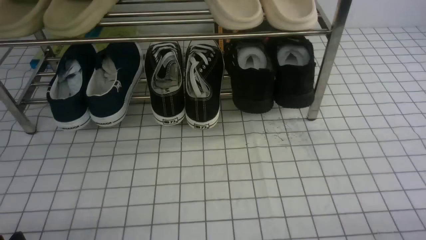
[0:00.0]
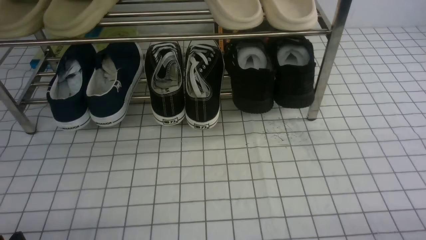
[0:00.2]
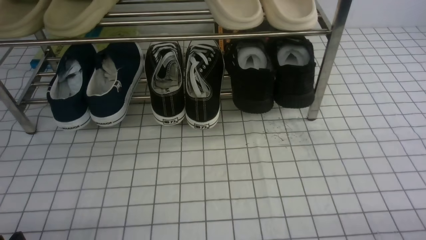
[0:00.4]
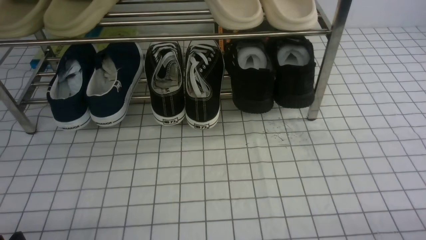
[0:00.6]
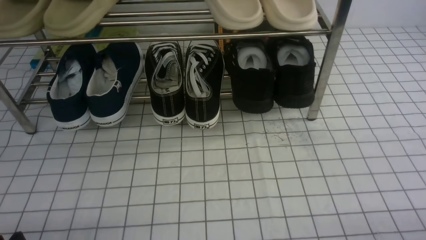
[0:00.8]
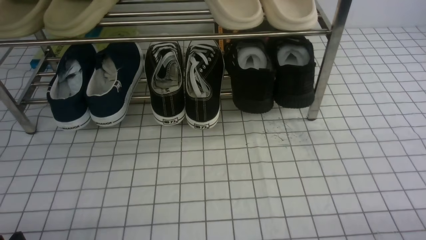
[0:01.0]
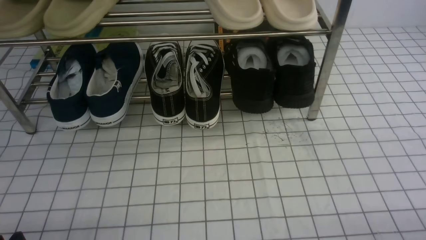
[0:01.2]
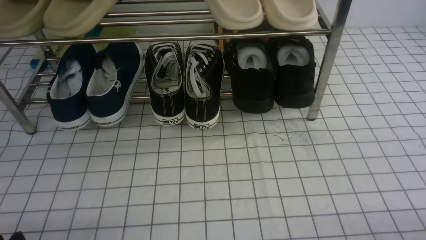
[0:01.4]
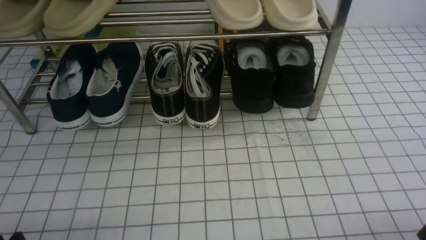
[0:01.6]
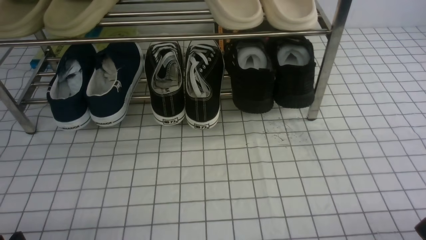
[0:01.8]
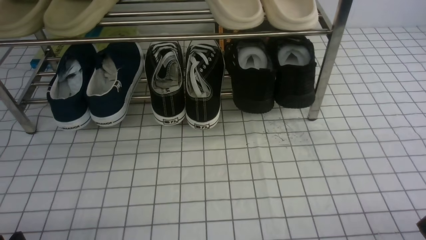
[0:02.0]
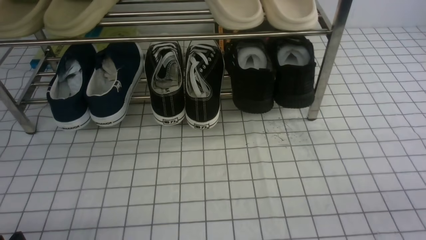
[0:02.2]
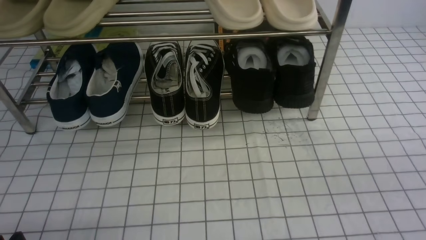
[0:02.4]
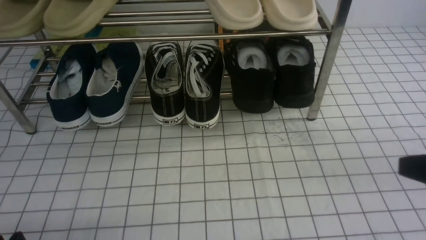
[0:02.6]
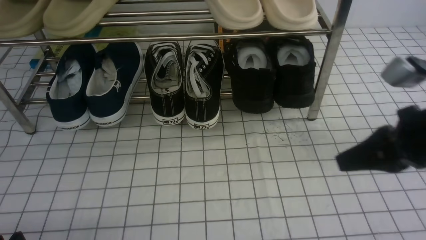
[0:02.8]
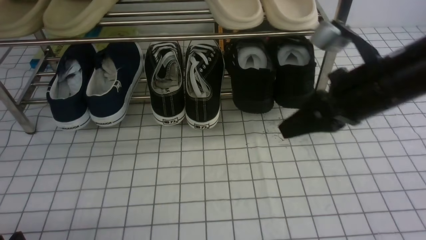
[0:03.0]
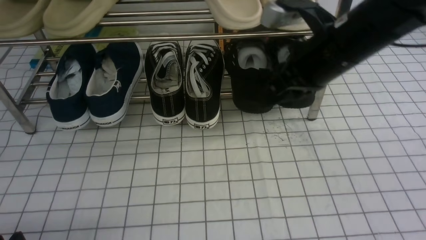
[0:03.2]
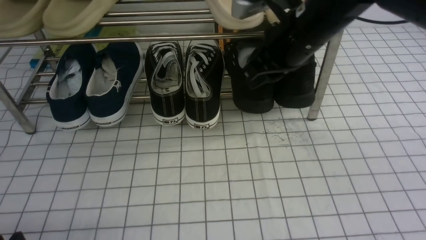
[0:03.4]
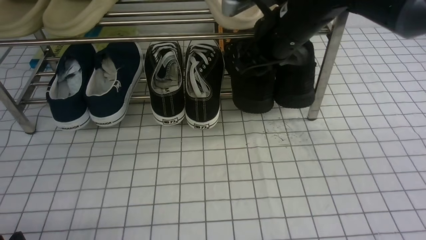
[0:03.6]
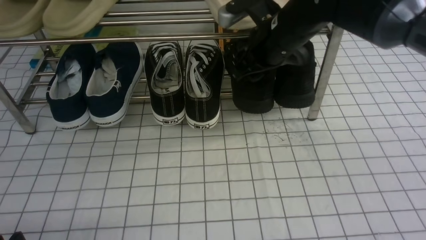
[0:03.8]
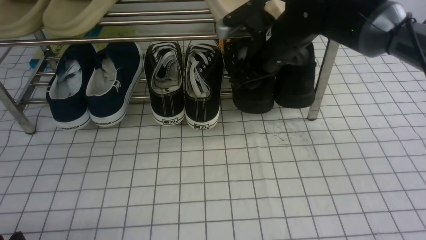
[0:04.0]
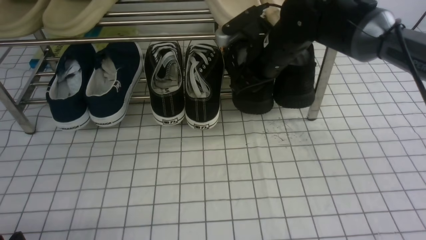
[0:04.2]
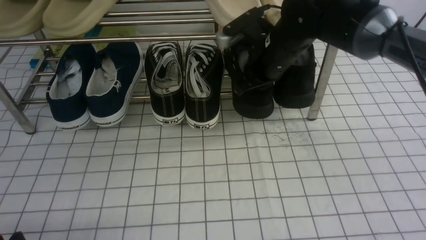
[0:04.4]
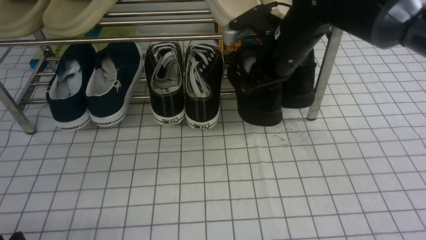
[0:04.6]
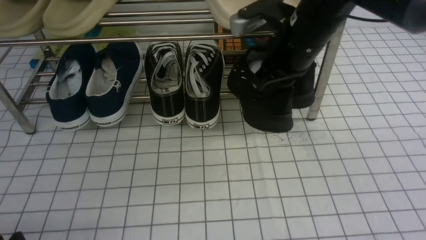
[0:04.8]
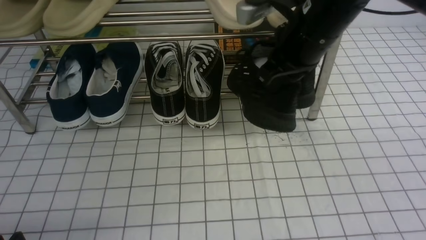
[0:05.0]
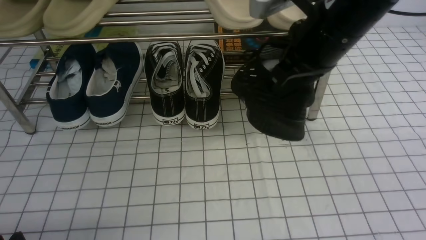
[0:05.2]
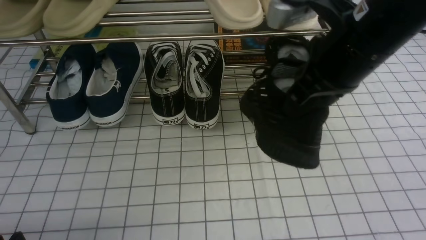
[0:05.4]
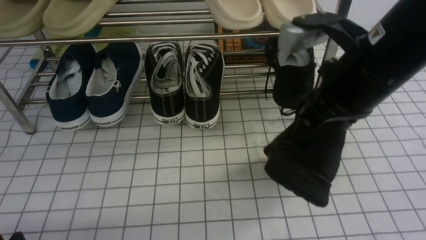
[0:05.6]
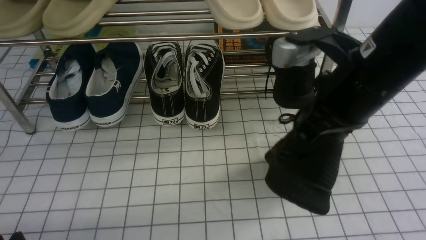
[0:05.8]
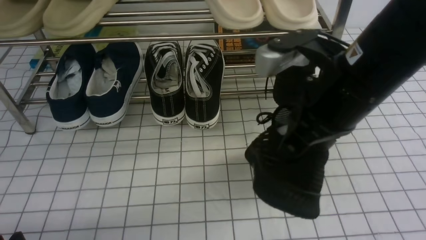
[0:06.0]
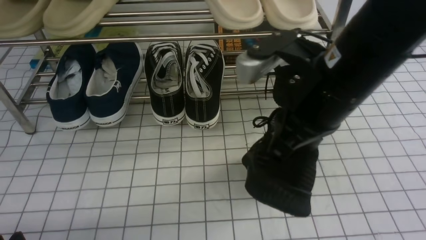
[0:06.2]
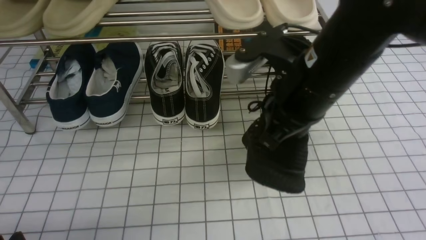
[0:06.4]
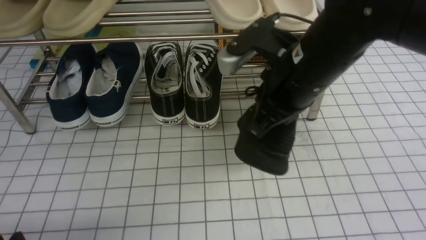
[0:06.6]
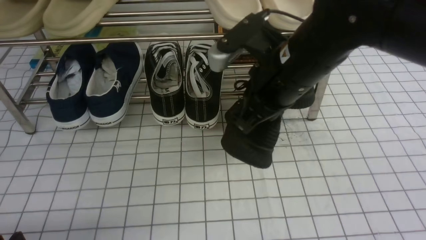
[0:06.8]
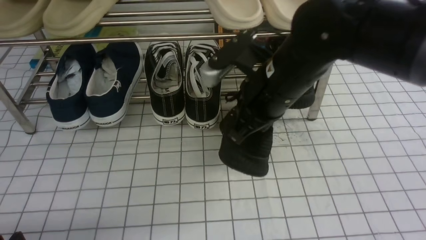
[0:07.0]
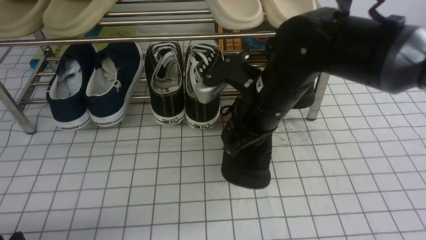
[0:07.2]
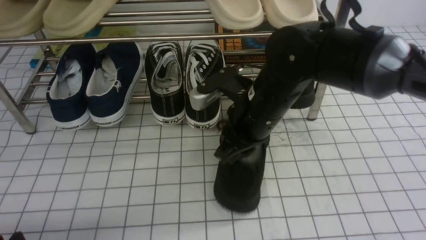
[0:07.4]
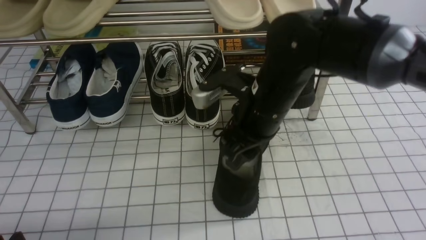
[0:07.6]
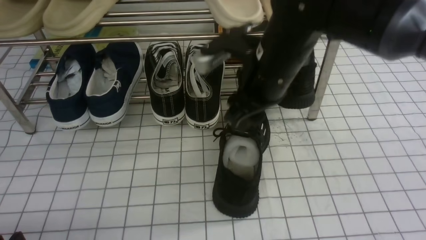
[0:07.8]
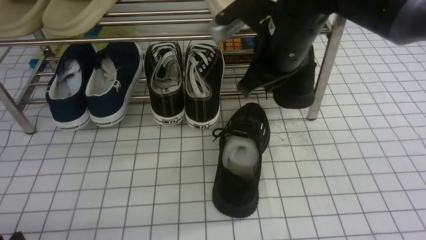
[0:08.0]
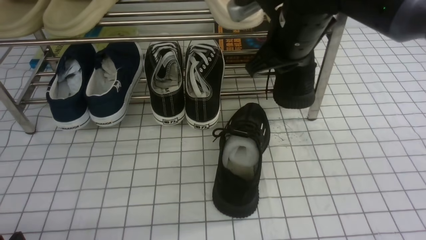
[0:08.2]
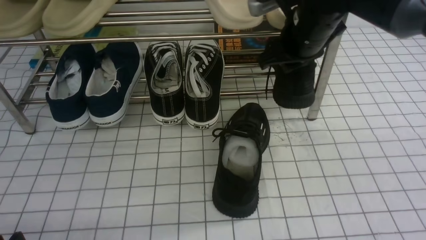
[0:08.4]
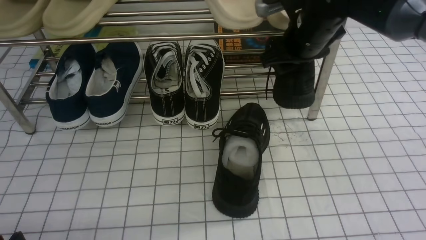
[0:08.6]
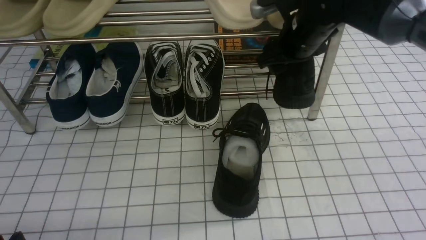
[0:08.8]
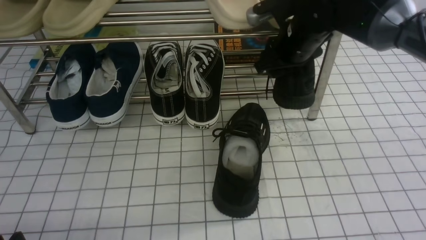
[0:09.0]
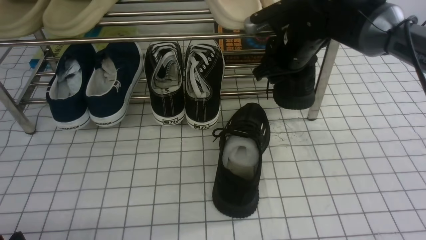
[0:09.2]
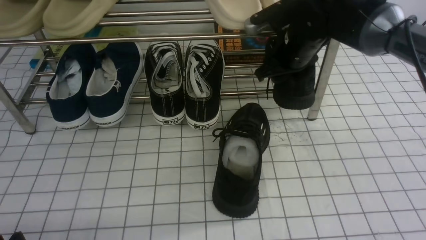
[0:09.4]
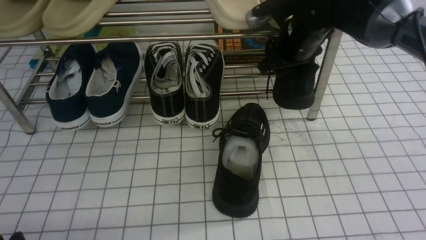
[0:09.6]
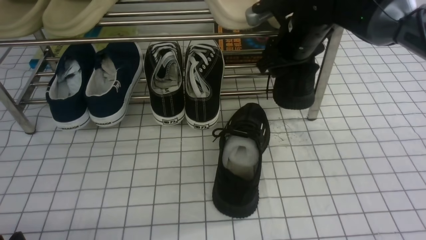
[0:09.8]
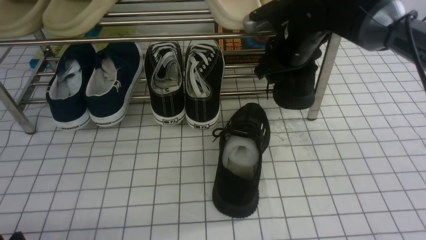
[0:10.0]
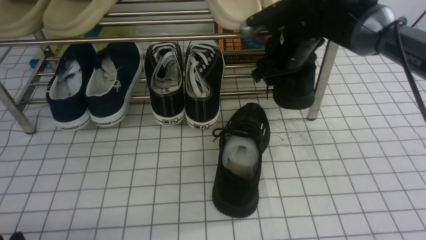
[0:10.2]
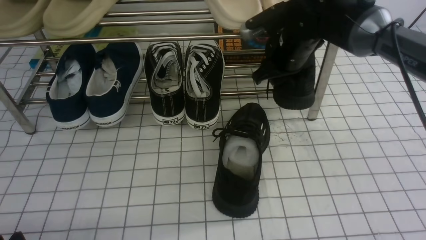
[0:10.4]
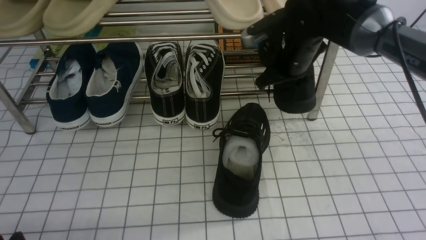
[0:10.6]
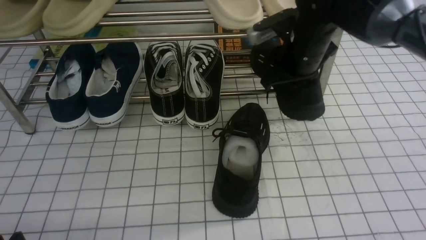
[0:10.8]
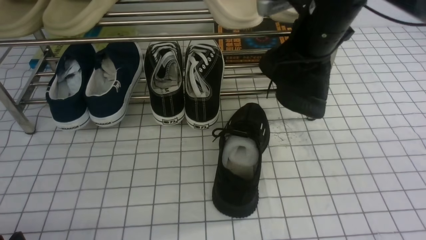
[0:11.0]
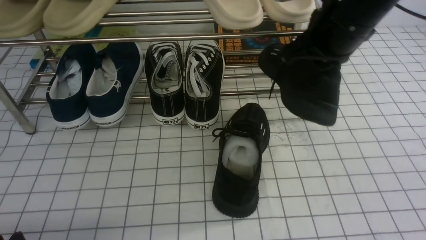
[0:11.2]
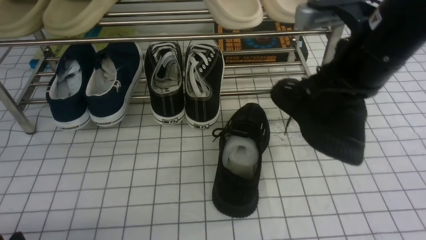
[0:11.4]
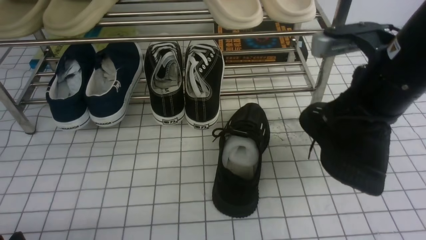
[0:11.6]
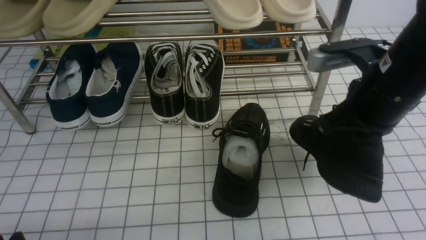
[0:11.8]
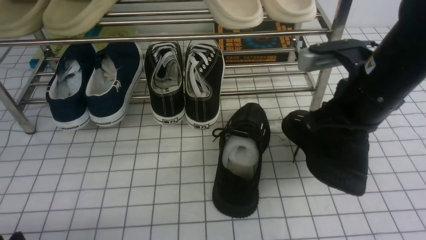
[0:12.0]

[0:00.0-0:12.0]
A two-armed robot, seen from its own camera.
Step, 0:00.0 to 0:04.0: use the right arm to clamp a shoe on the right side of the shoe rack.
Step, 0:04.4 to 0:07.8: use the right arm to take out the clamped shoe from the shoe rack and put it down.
Step, 0:08.0 to 0:10.4: use the right arm to clamp a shoe on the right side of the shoe rack.
0:01.6 to 0:03.0: The right gripper moves forward, upward and to the left, roughly 30 cm, and closes up.
0:03.0 to 0:04.4: The right gripper heads forward and to the left, covering about 15 cm, and opens and closes again.
0:04.4 to 0:06.0: The right gripper shifts some 20 cm backward and upward.
0:06.0 to 0:07.6: The right gripper goes approximately 10 cm forward, downward and to the left, and opens up.
0:07.6 to 0:09.0: The right gripper heads forward and to the right, covering some 15 cm, and closes, then opens again.
0:09.0 to 0:10.4: The right gripper closes its fingers.
0:10.4 to 0:12.0: The right gripper is displaced backward by some 15 cm, and closes.

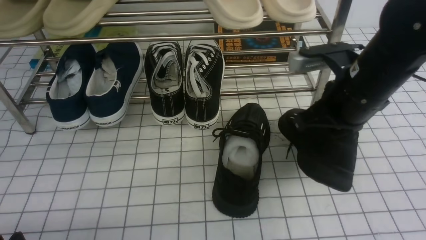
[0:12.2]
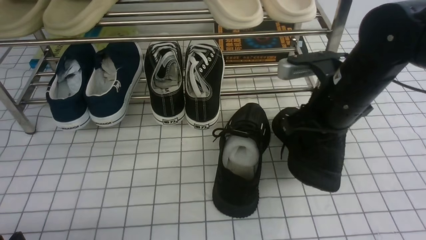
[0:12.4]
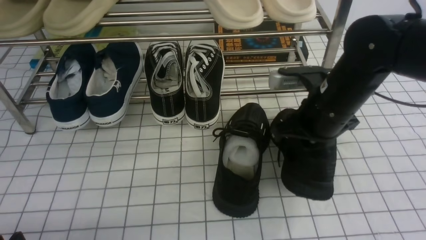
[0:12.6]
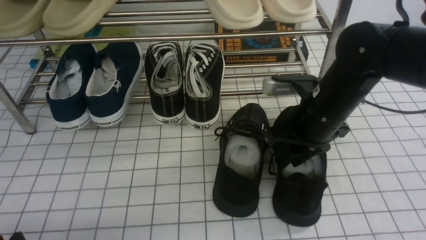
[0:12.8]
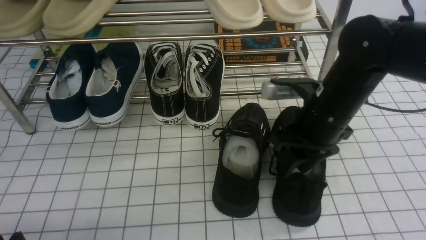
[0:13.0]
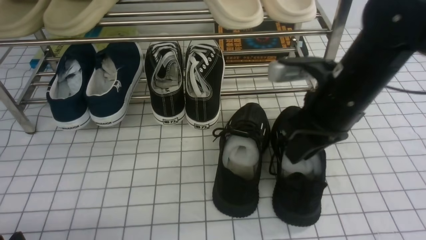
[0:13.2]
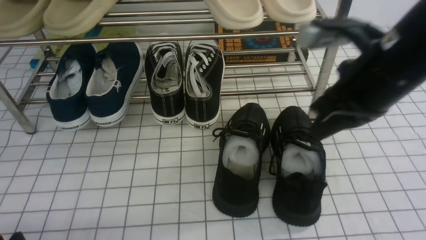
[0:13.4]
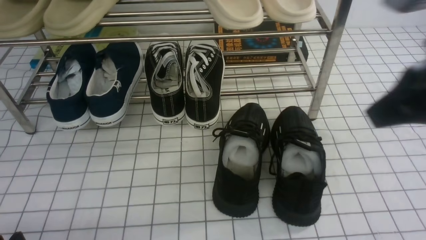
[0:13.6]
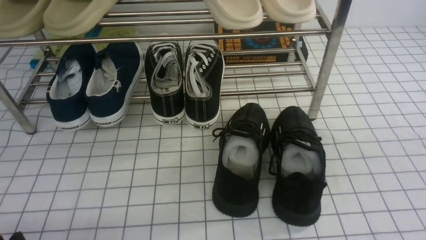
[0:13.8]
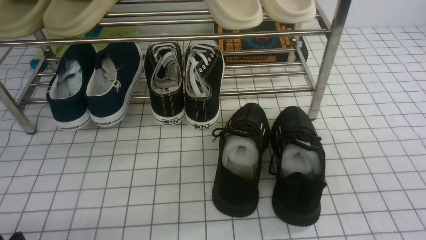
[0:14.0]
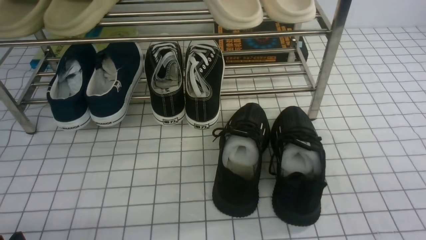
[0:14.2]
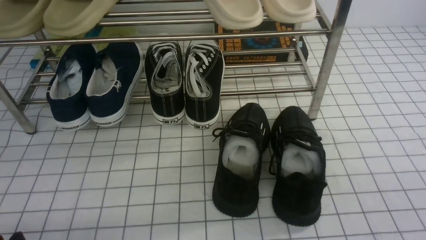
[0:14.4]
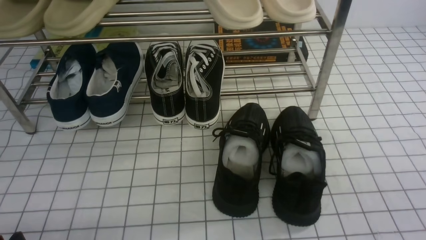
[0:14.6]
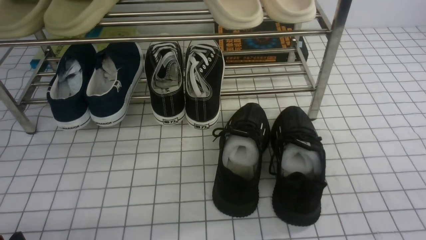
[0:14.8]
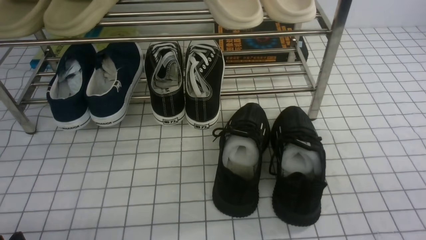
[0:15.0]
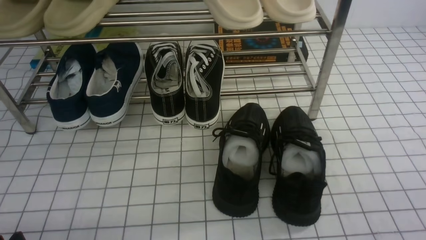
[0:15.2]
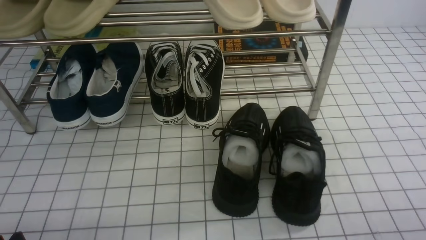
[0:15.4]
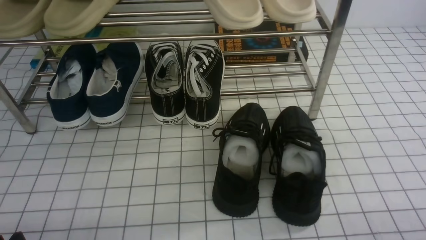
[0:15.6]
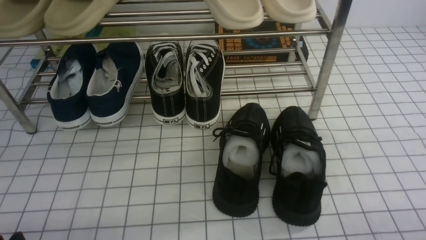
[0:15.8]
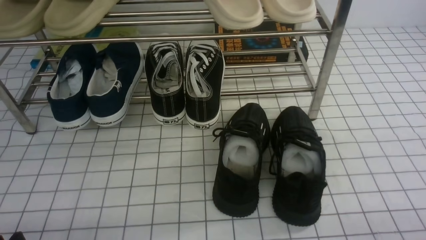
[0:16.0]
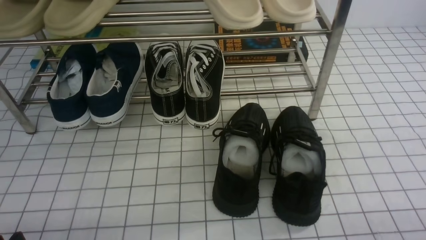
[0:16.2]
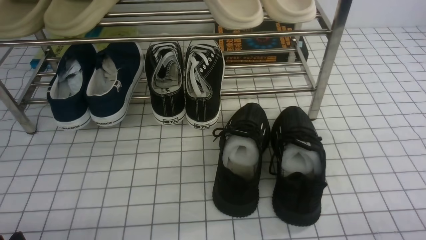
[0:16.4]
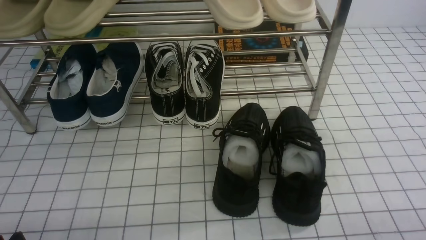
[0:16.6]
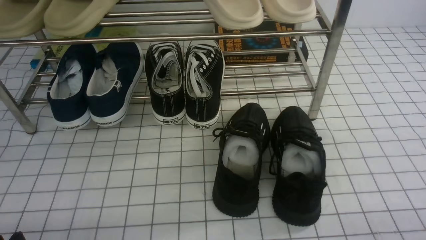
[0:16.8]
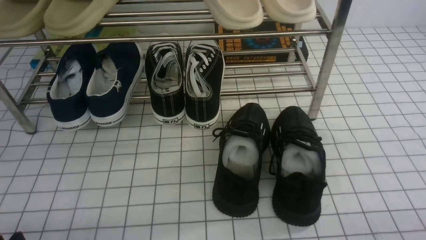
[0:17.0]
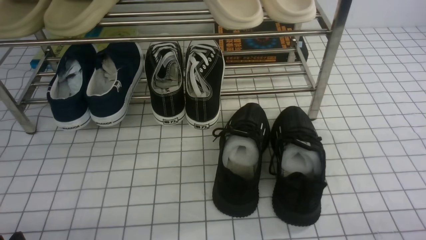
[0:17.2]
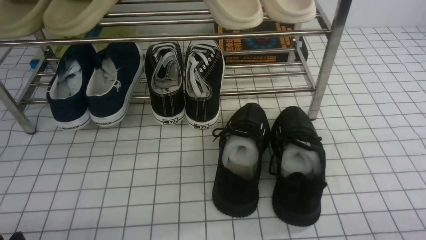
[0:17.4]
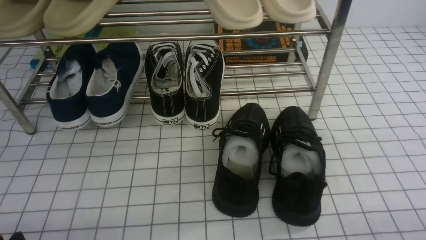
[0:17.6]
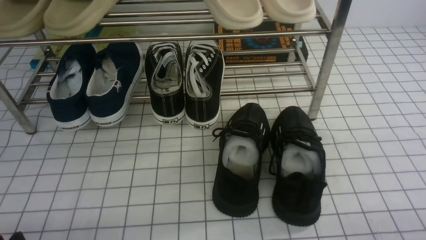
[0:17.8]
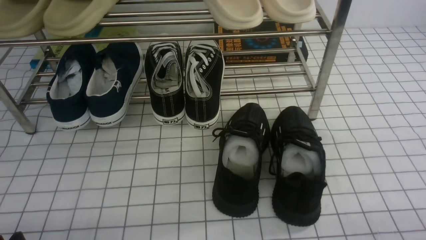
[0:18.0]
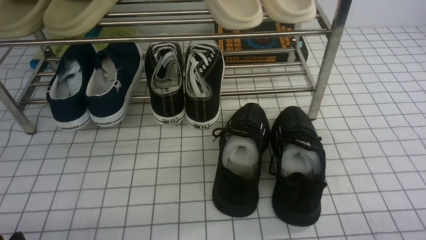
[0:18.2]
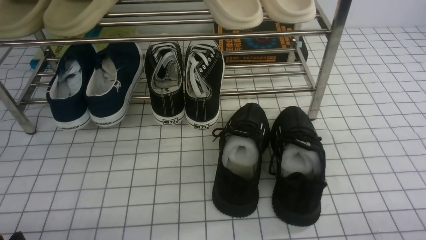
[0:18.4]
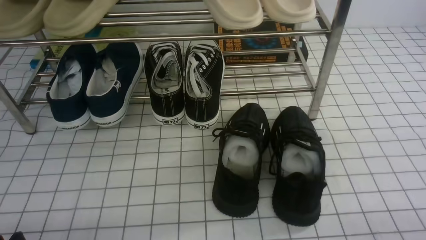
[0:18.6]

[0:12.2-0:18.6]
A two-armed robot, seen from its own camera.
0:12.2 to 0:13.8: The right gripper travels backward, upward and to the right by approximately 25 cm, and opens, then closes again.
0:13.8 to 0:15.4: The right gripper moves downward, roughly 20 cm.
0:17.0 to 0:18.6: Neither gripper changes place.
